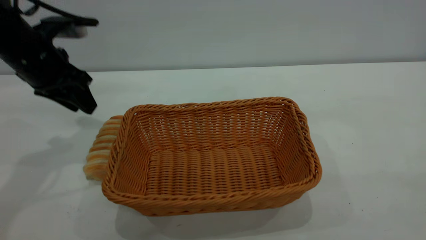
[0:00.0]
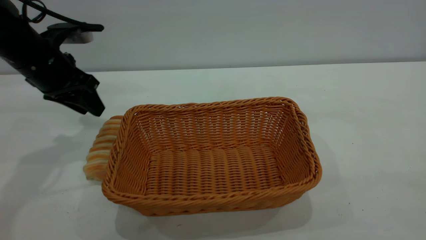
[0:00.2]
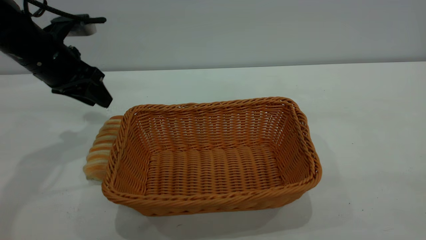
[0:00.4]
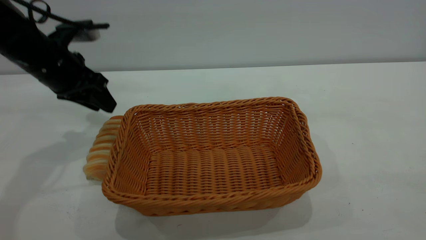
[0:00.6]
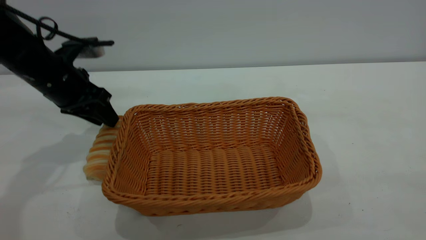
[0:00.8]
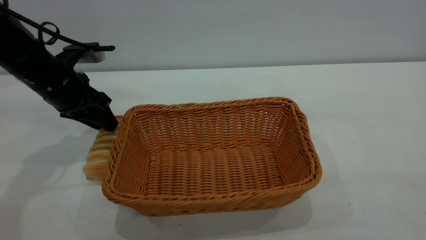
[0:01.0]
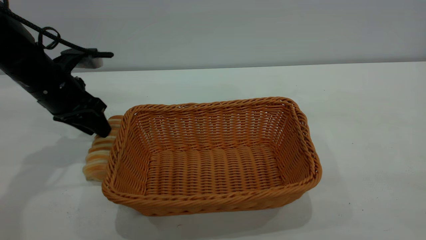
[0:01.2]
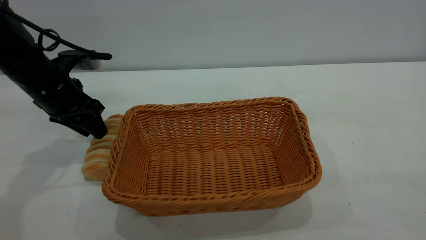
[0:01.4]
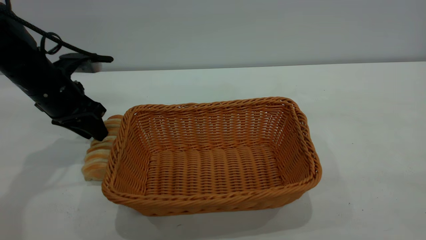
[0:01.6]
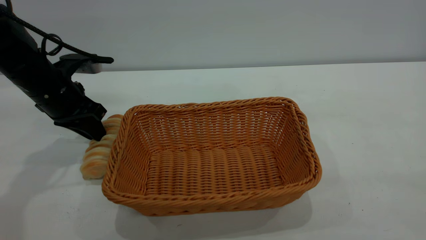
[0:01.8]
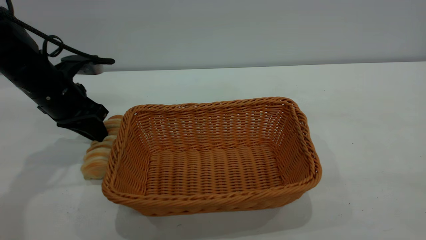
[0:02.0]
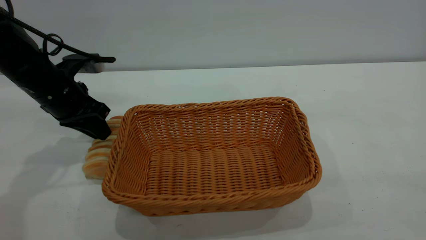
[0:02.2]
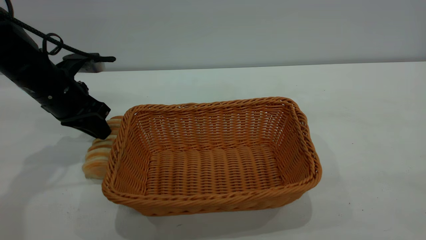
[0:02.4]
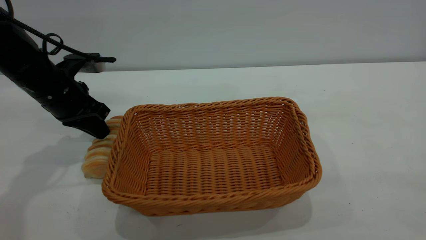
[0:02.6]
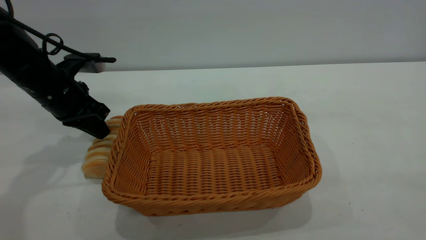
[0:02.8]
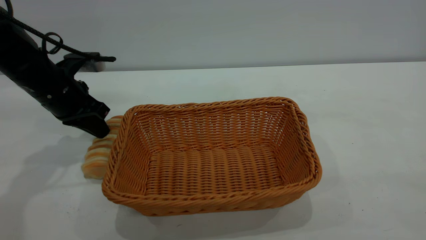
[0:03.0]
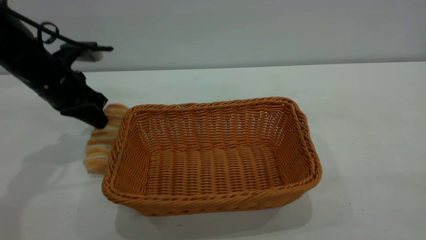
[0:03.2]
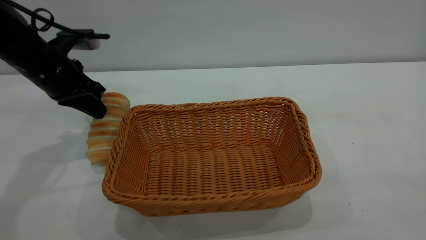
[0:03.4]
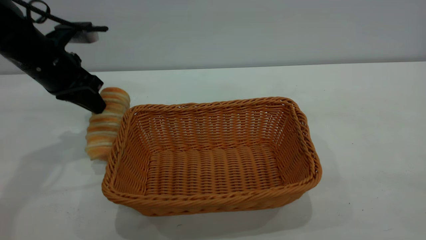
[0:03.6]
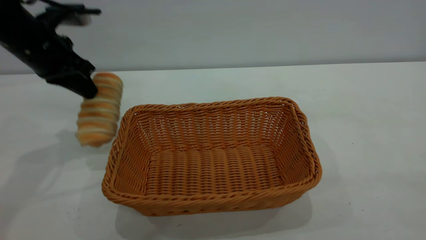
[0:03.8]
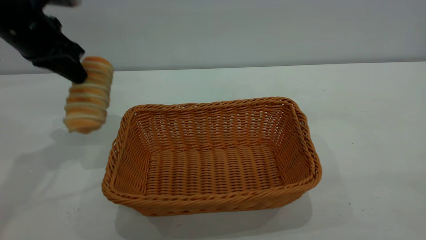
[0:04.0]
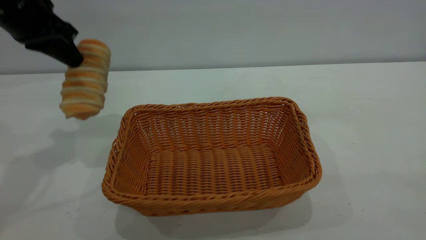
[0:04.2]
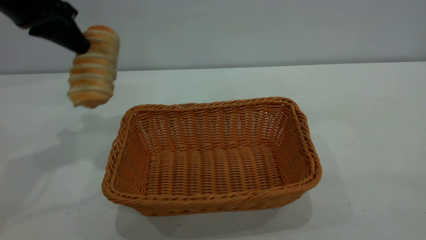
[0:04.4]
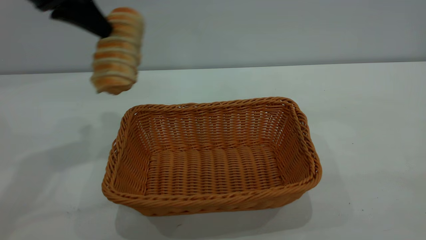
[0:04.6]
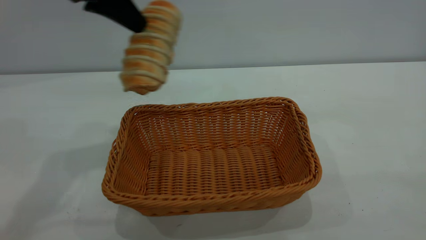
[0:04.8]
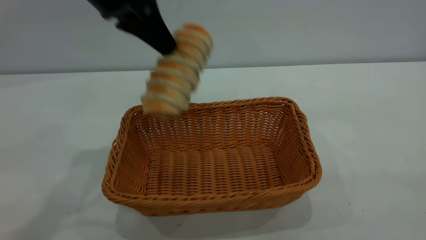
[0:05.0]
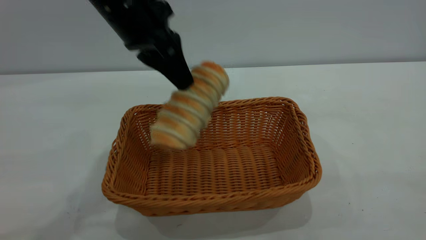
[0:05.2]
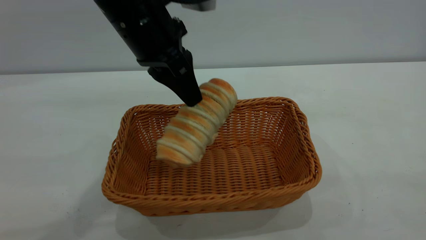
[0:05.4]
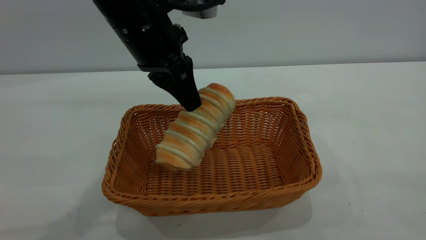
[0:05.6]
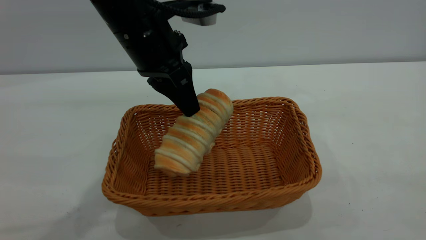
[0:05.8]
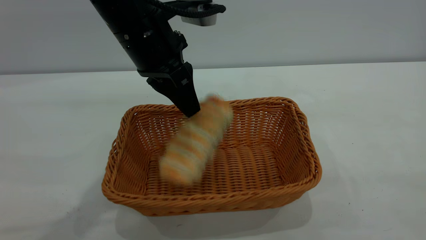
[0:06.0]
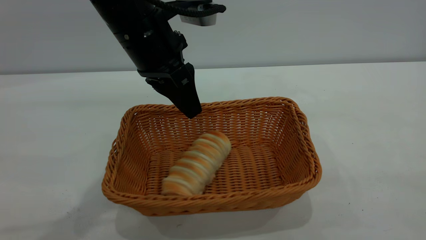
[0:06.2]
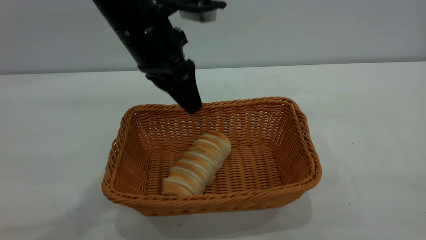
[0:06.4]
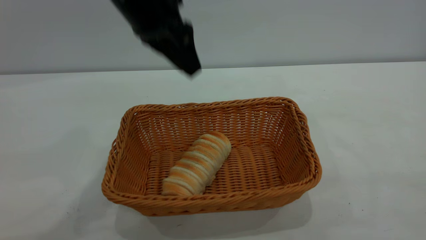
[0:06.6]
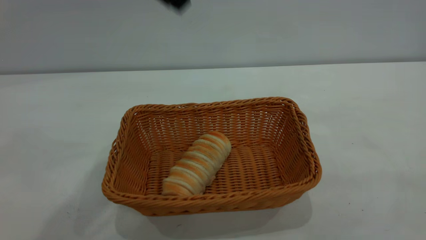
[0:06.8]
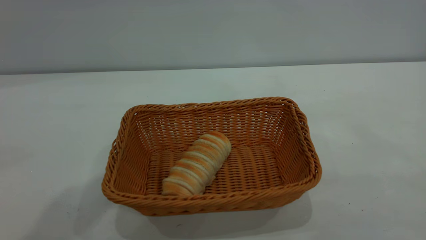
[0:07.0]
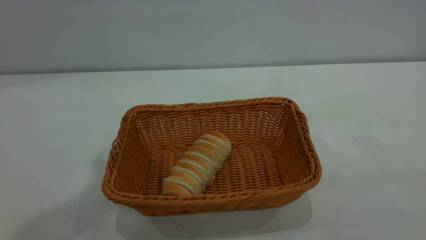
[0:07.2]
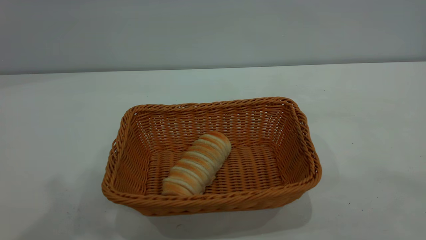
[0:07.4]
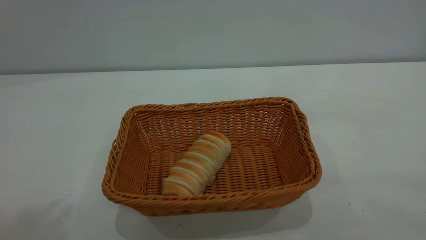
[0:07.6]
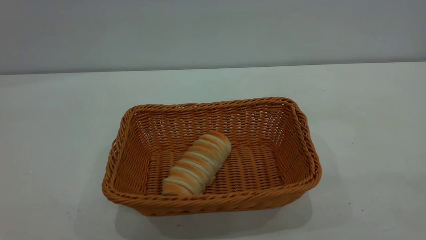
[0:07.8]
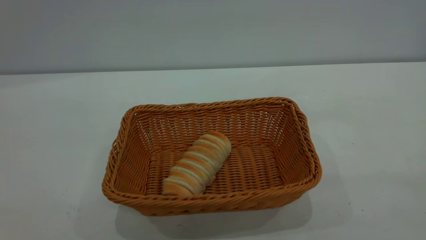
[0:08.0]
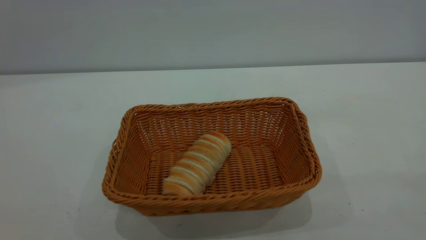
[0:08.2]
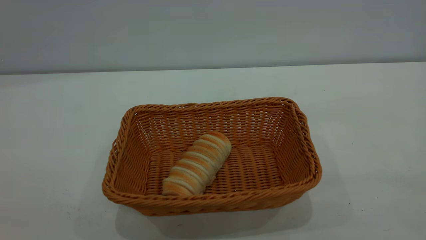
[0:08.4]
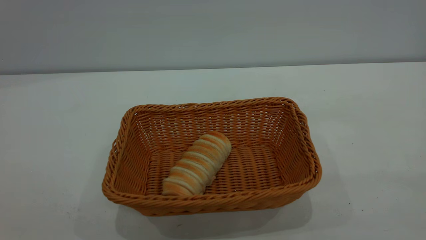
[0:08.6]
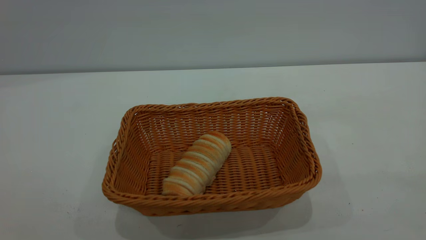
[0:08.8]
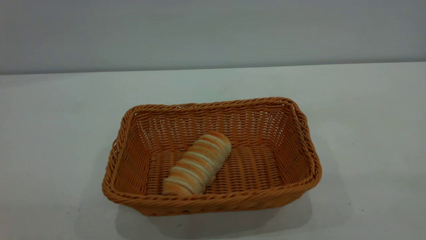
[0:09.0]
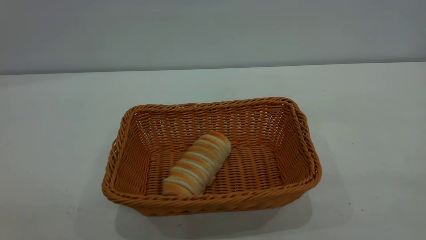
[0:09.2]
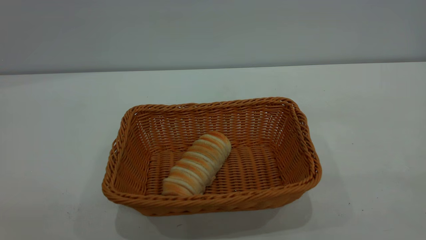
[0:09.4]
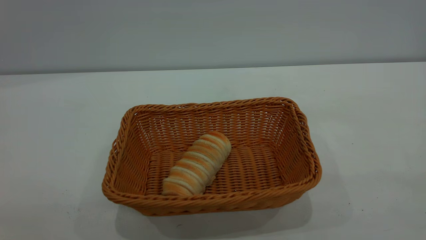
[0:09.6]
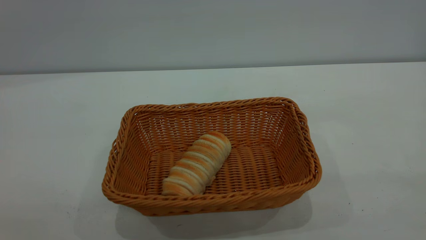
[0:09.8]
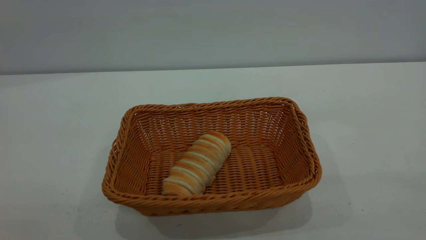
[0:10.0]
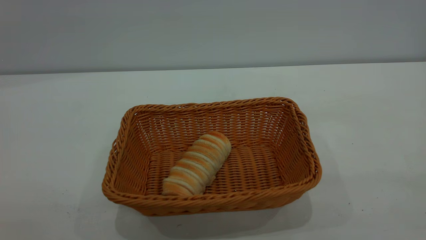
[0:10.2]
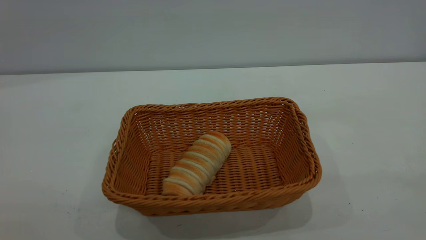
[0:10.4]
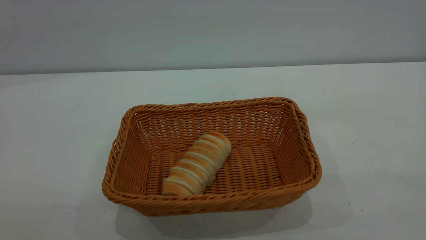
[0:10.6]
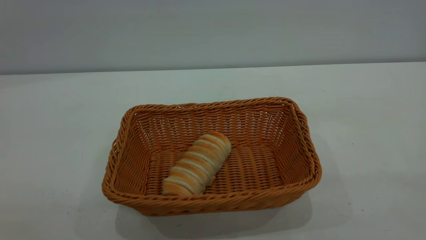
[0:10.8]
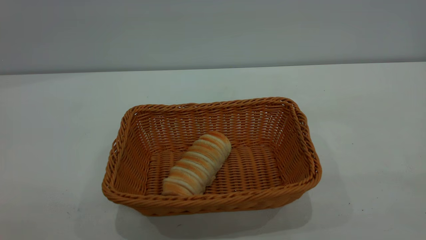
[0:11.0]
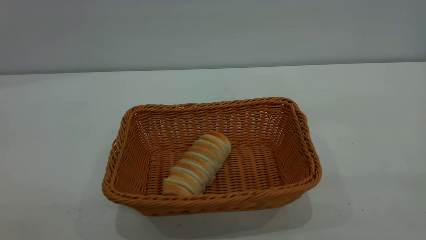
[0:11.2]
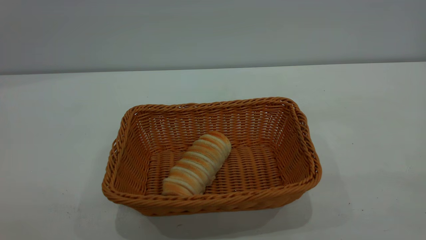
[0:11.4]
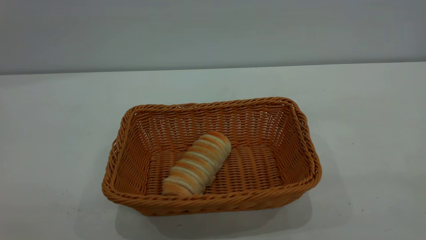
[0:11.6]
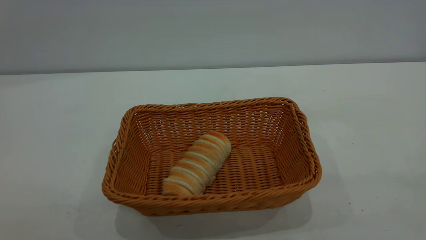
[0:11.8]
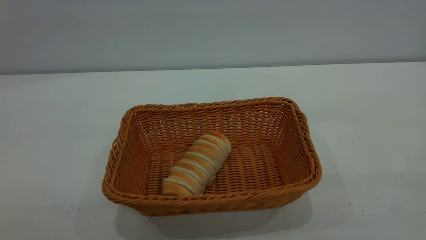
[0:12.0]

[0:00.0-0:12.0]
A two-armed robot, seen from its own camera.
Task of the whole recording: One hand grasps the yellow basket and places it in the middle of the table, while the other hand picks up the long bread and puts it into the yellow basket.
Step, 0:04.0 to 0:06.4: place the bread into the basket.
0:00.0 to 0:01.6: The left gripper moves downward, some 5 cm.
0:01.6 to 0:03.0: The left gripper closes.
0:03.0 to 0:04.4: The left gripper shifts approximately 15 cm upward.
0:04.4 to 0:06.0: The left gripper moves to the right, about 15 cm.
0:06.0 to 0:07.6: The left gripper moves upward, backward and to the left, roughly 40 cm.
0:10.4 to 0:12.0: Neither gripper changes place.
